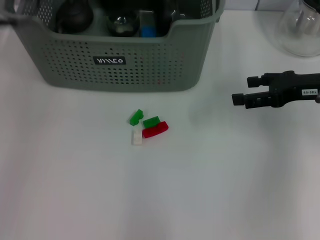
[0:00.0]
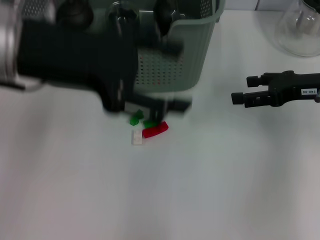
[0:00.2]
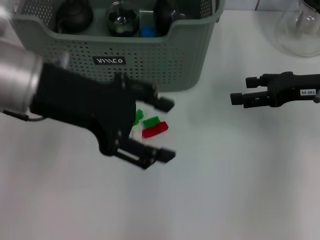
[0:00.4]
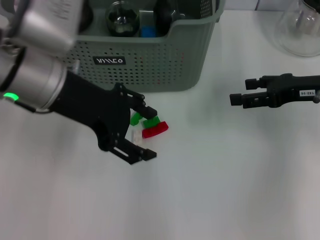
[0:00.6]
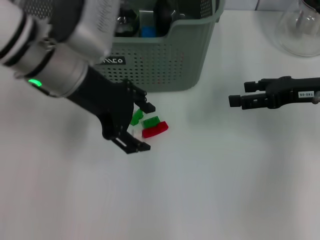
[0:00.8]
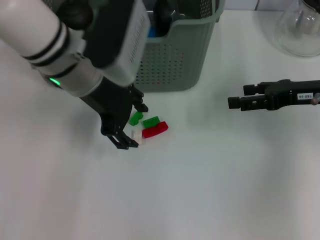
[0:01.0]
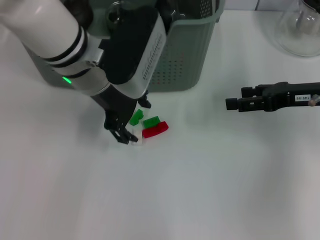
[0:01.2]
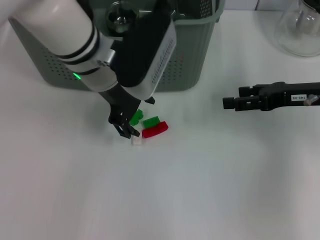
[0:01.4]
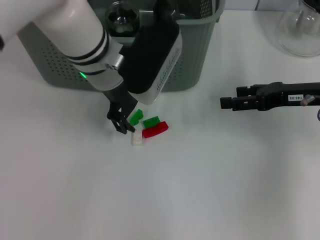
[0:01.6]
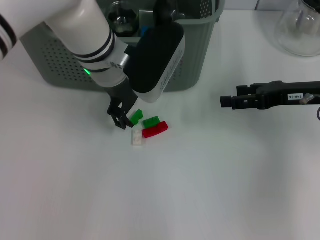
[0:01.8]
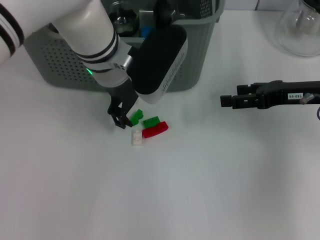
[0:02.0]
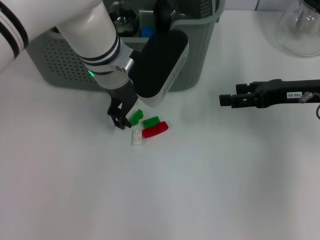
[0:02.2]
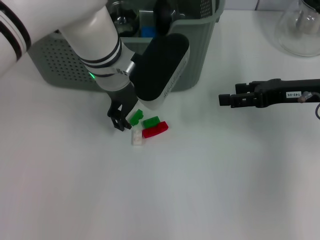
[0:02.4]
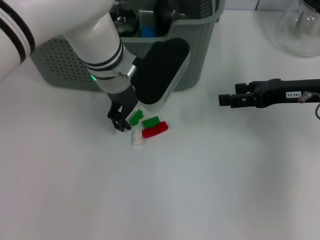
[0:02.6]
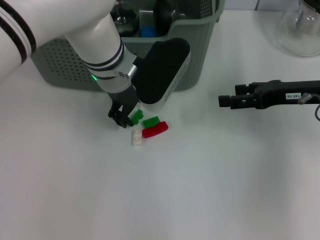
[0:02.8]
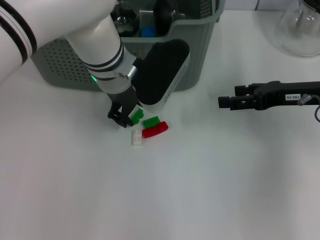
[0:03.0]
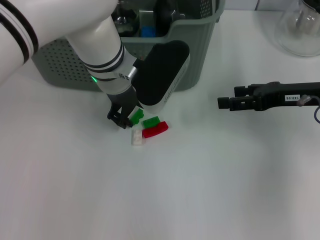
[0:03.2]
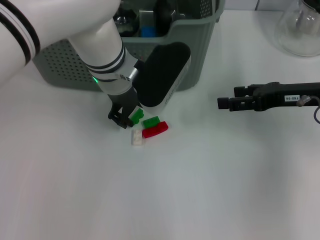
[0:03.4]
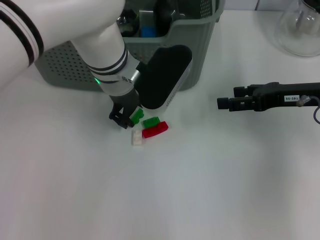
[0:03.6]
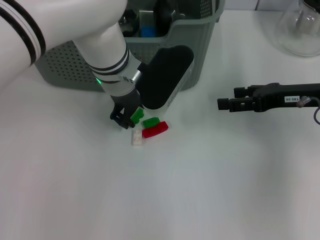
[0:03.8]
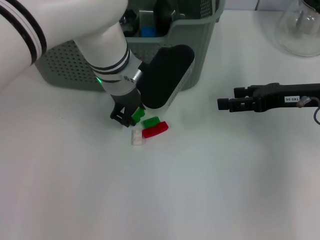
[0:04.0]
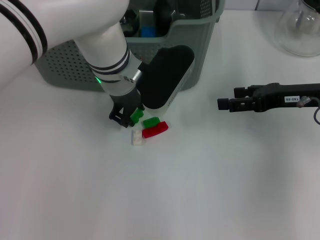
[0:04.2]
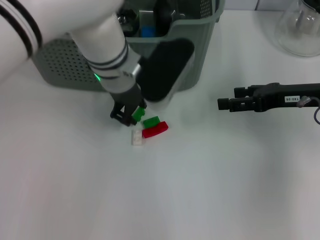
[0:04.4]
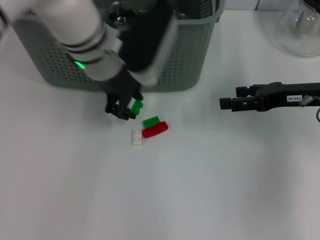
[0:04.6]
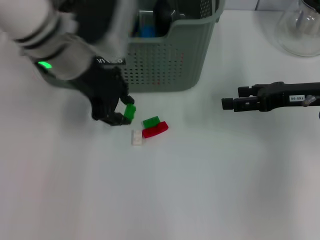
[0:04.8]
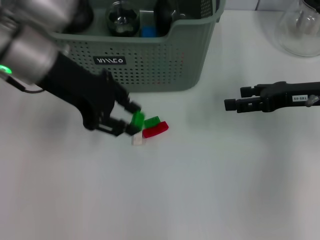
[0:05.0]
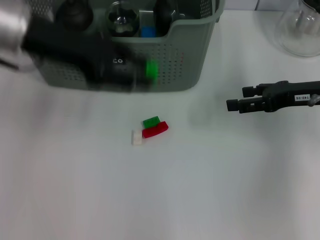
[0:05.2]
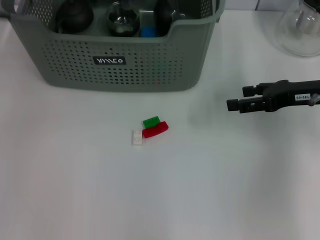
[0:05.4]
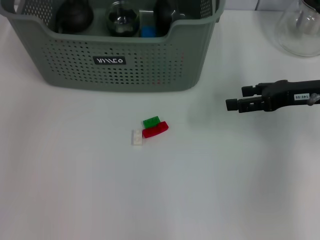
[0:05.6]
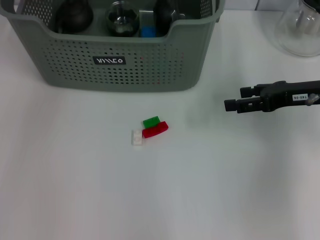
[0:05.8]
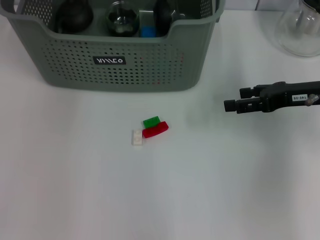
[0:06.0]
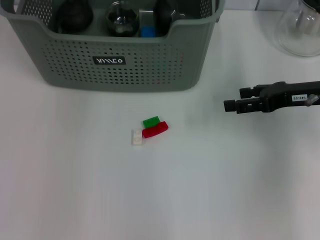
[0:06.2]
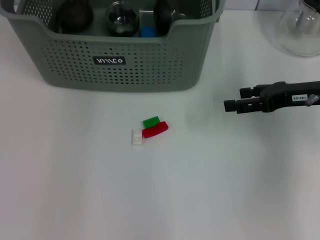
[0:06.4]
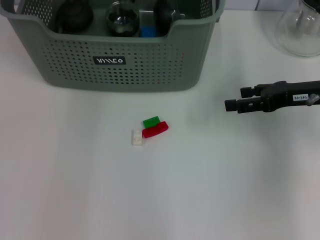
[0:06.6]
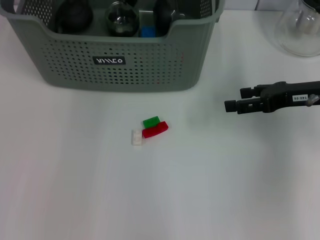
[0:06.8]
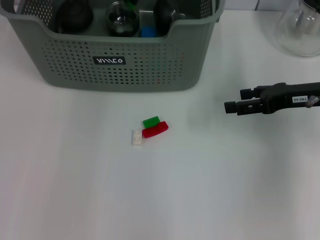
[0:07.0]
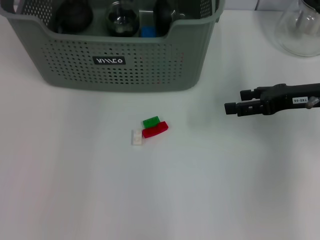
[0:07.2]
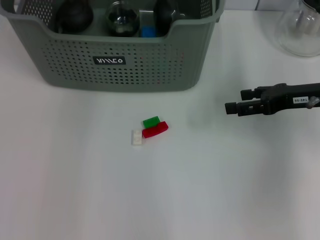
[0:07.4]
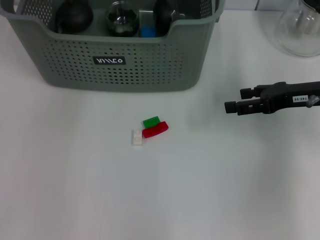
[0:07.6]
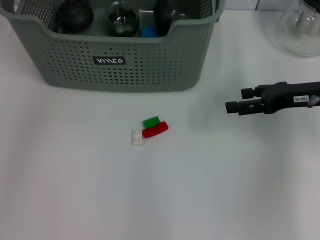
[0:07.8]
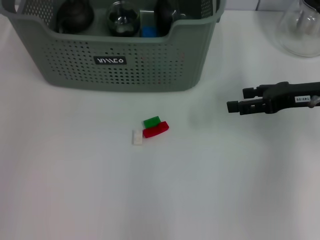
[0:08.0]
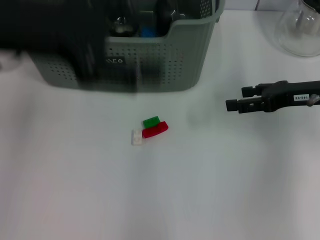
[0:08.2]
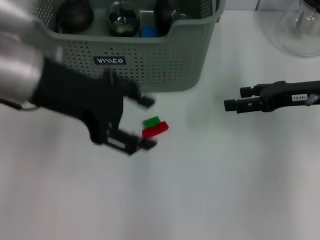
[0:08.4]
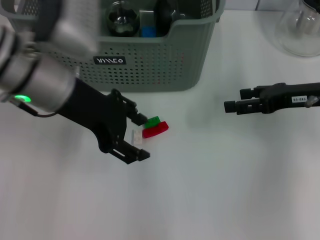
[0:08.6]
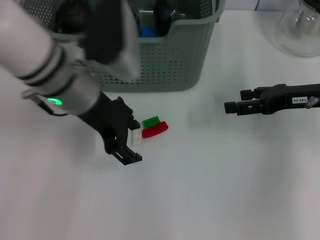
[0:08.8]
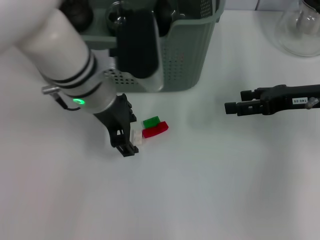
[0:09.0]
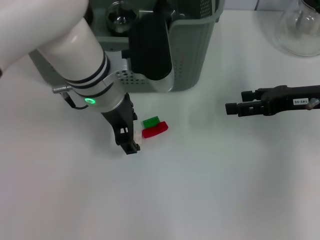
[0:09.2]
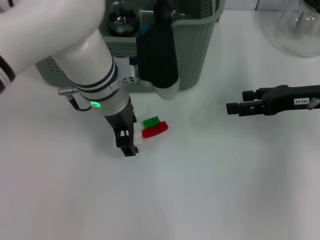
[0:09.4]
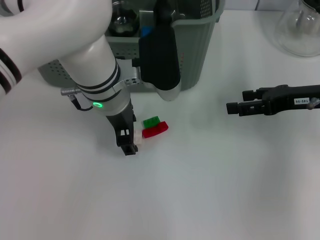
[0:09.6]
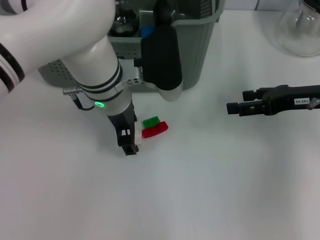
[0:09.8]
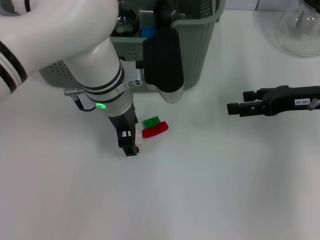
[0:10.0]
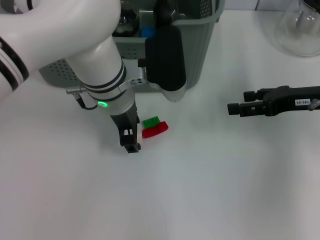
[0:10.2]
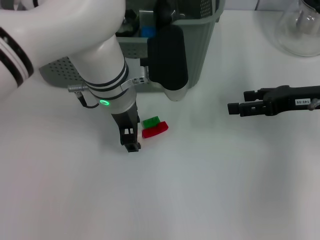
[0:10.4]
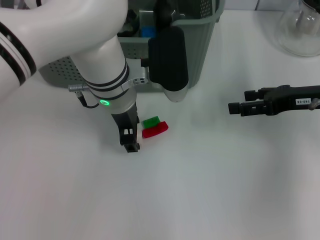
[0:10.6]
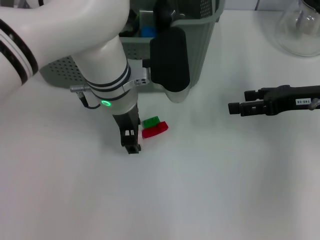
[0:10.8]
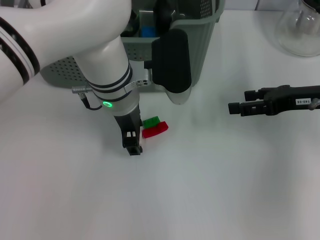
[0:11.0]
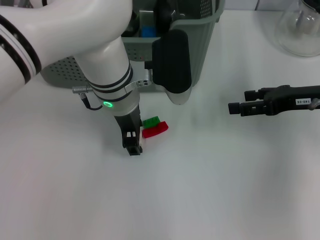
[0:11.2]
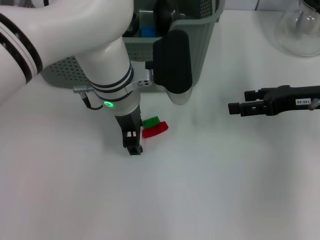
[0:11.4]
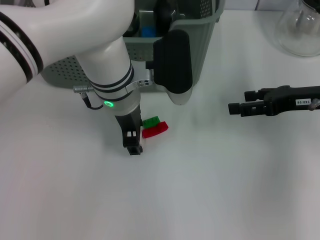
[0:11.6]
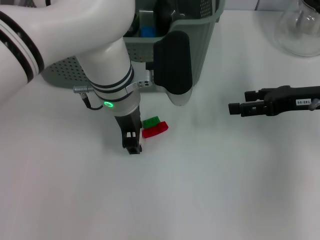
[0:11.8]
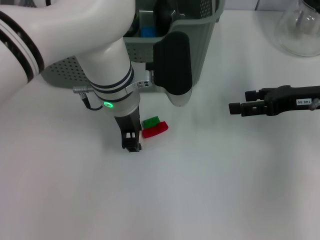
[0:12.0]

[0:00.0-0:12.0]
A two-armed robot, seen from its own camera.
Task of the whole recording: pick up the teacup on the table and place it into the storage bin, pick up the block on the table and place it into the storage bin.
Step, 0:00.0 to 0:04.2: Grasp the green block with left gripper.
Step, 0:04.4 to 0:07.4: Place the green block in the storage box with left gripper.
0:00.0 to 0:01.6: The left gripper is displaced downward, to the right and forward by some 20 cm.
0:01.6 to 0:03.0: The grippers stay close to where they were, moving slightly.
0:03.0 to 0:04.4: Both grippers stay put.
0:04.4 to 0:06.0: The left gripper is displaced upward, to the left and forward by approximately 20 cm.
0:07.6 to 0:09.0: The left gripper shifts roughly 20 cm downward, to the right and backward.
0:09.0 to 0:10.4: The grippers stay close to where they were, moving slightly.
0:10.4 to 0:12.0: Both grippers stay about where they are.

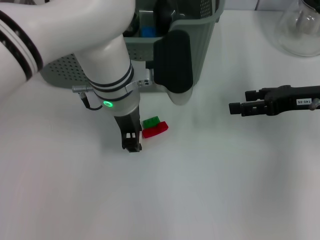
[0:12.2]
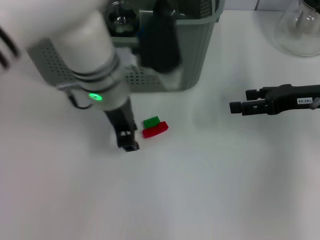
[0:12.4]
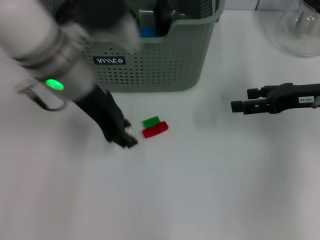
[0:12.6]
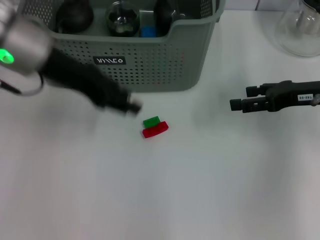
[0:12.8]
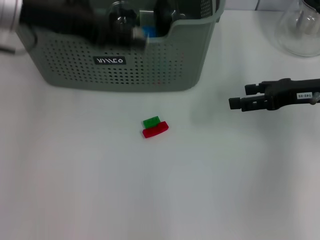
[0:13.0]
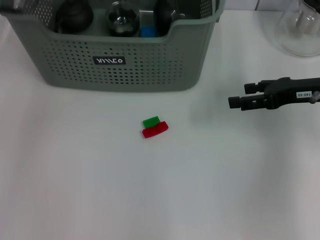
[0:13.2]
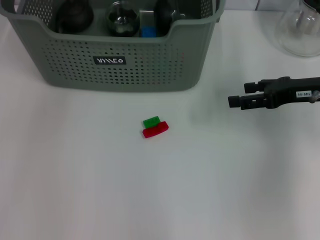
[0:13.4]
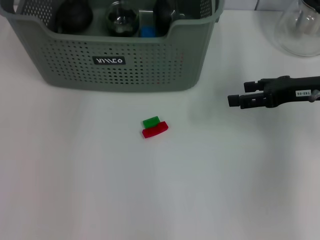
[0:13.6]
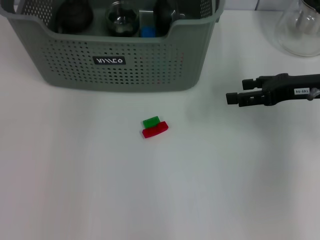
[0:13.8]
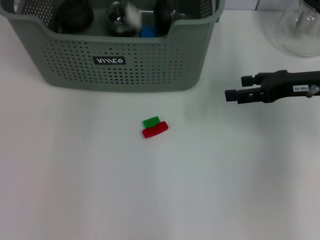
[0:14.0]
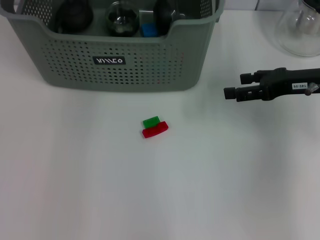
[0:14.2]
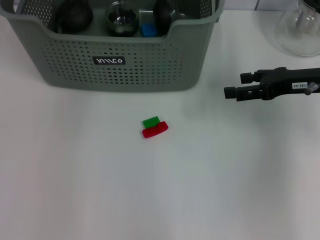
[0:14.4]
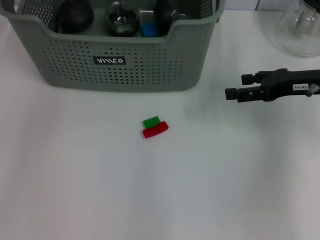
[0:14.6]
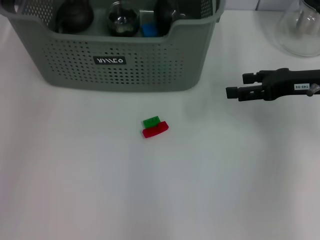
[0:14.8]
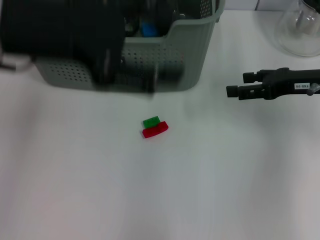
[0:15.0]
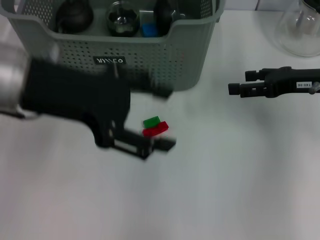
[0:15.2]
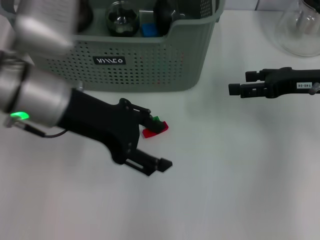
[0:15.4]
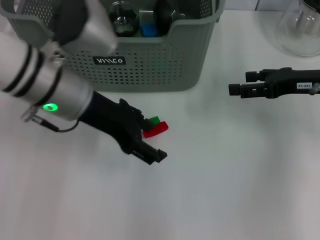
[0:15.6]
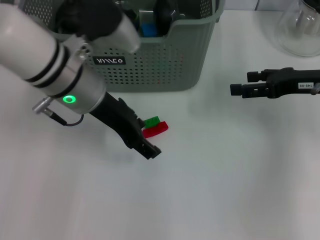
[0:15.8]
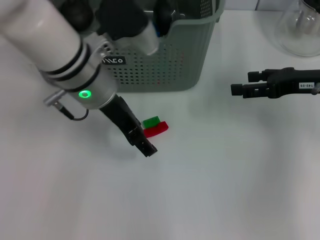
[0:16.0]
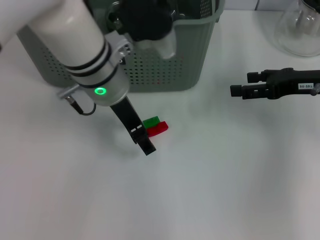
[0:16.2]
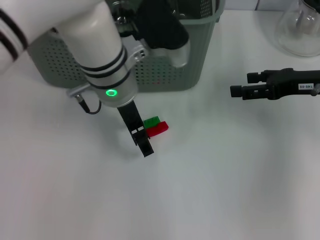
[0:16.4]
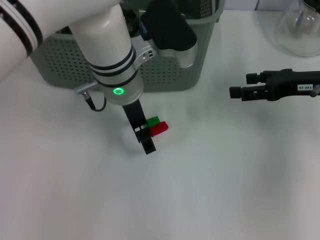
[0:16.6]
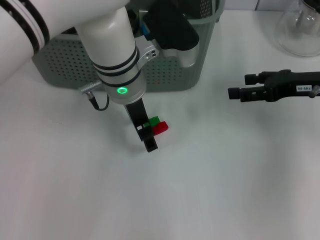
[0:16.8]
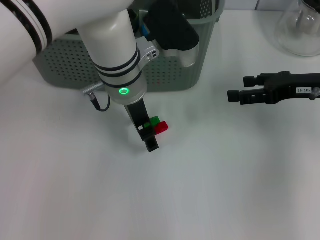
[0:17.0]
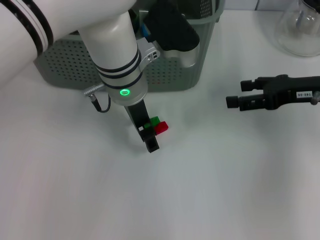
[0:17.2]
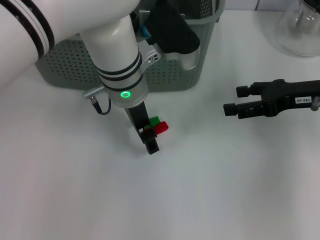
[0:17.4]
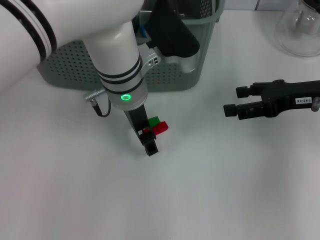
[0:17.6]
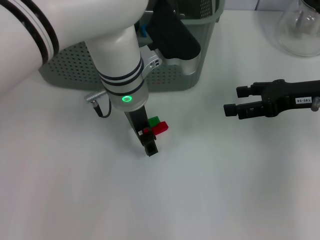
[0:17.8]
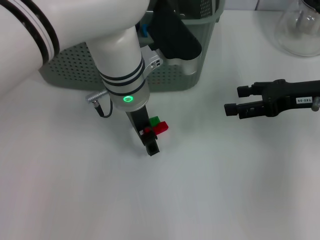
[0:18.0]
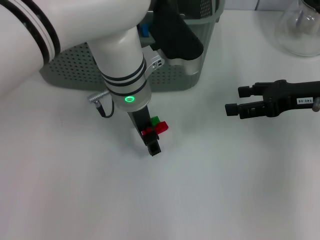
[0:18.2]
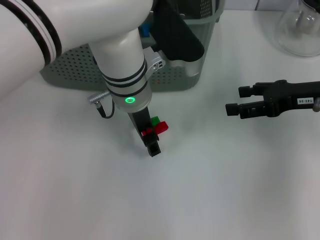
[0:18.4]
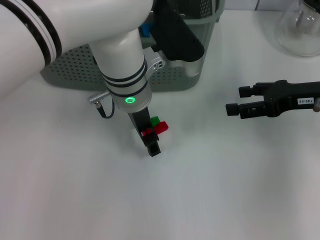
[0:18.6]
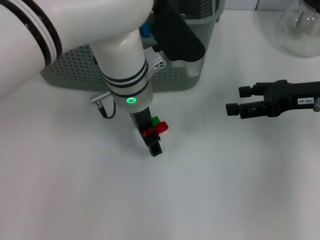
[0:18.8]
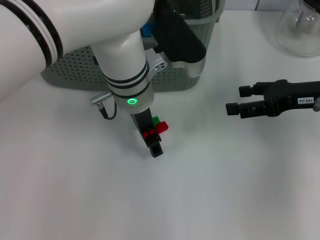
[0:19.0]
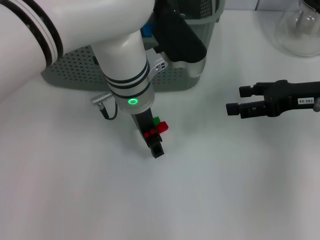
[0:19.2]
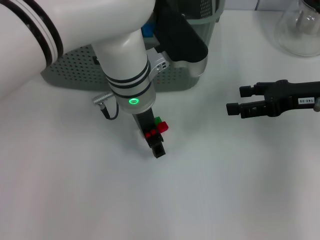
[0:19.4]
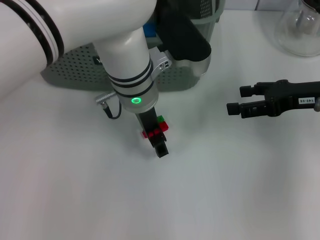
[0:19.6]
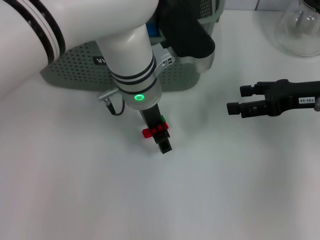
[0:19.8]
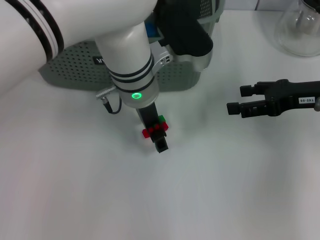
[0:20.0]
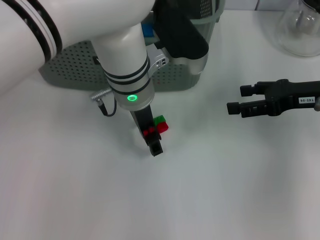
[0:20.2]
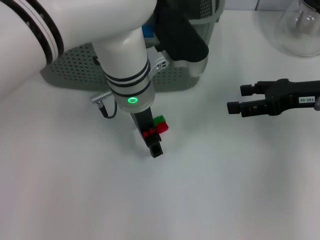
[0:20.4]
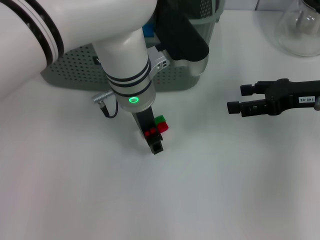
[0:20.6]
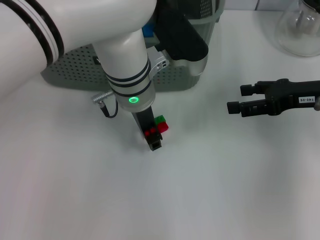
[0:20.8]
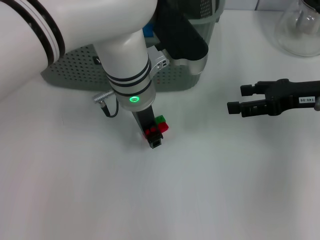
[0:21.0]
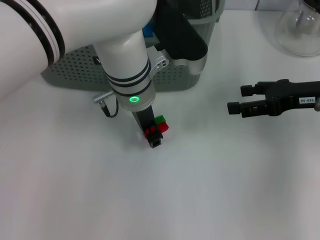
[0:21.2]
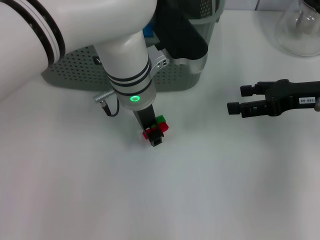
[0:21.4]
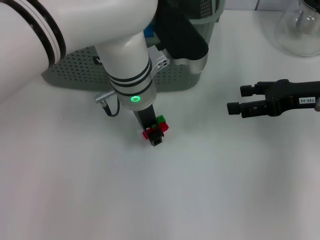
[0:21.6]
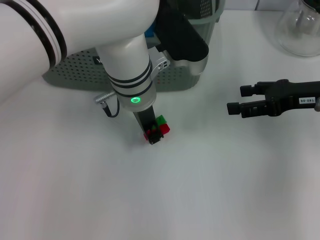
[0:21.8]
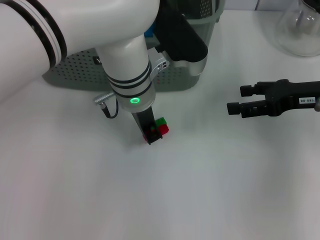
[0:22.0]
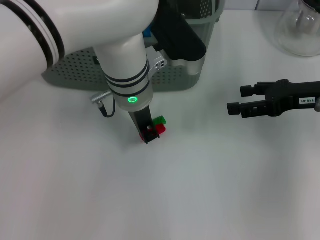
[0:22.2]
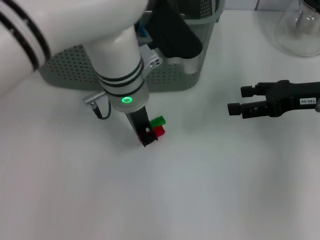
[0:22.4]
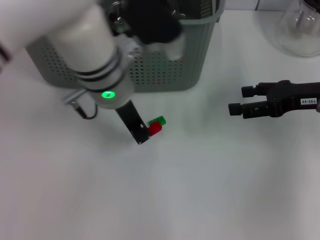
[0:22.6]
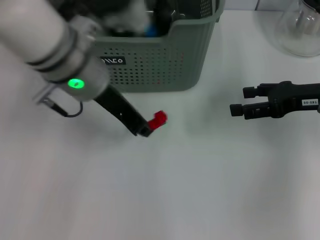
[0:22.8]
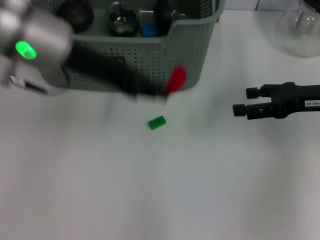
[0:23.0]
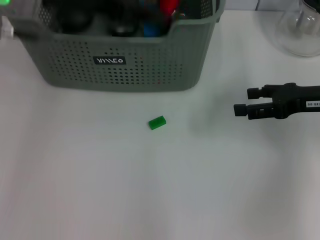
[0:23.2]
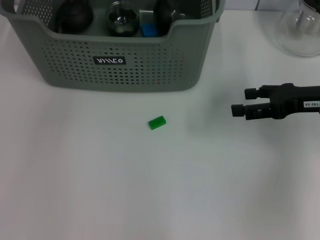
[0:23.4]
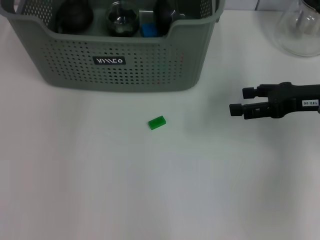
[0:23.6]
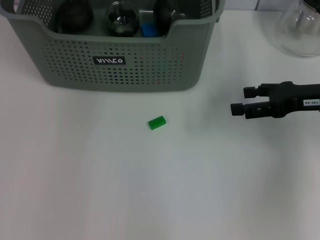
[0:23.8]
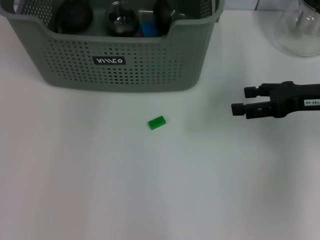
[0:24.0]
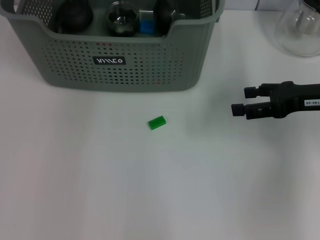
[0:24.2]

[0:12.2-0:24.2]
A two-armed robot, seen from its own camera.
Task of the whole recording: pick up the teacup on the table and place it into the storage bin, pick up the block on the table and place it into the storage bin.
Step, 0:12.4 to 0:14.0: Place the white block in the storage box with left gripper.
Step, 0:14.4 to 0:22.0: Grasp the red block with left gripper.
Step, 0:22.2 to 0:24.0: Place the red block in the storage box with left gripper.
0:12.2 to 0:13.8: The left gripper moves forward, upward and to the left, roughly 20 cm.
0:13.8 to 0:15.2: The left gripper goes approximately 20 cm backward, and opens its fingers.
0:15.2 to 0:16.6: The left gripper moves to the right, forward and downward, about 15 cm.
0:16.6 to 0:18.2: There are only small adjustments of the grippers.
0:18.2 to 0:21.2: The two grippers keep their place.
0:21.2 to 0:22.6: The left gripper shifts by roughly 5 cm.
0:22.6 to 0:24.2: The left gripper goes roughly 15 cm forward, upward and to the left, and opens up.
